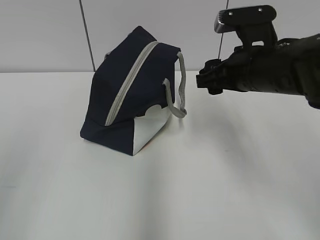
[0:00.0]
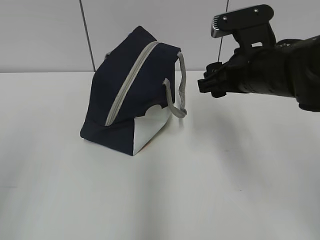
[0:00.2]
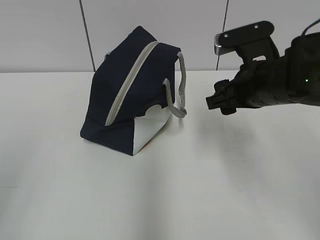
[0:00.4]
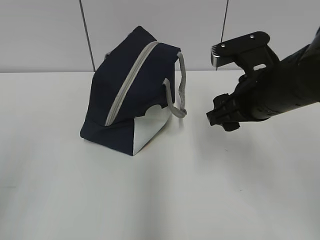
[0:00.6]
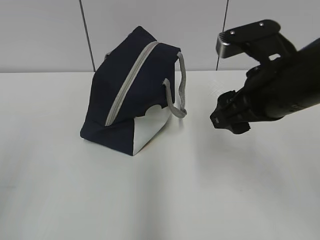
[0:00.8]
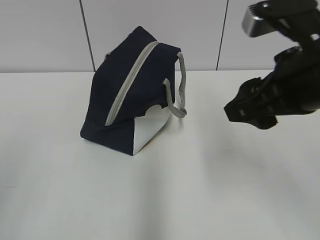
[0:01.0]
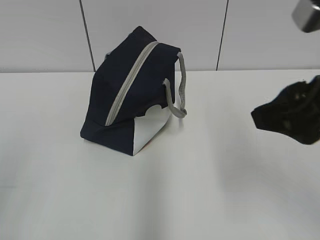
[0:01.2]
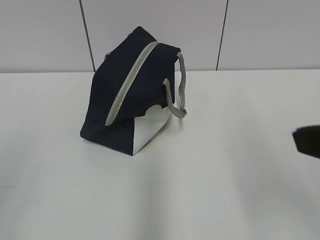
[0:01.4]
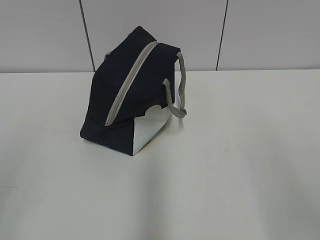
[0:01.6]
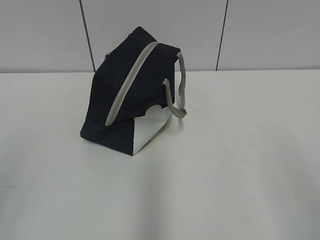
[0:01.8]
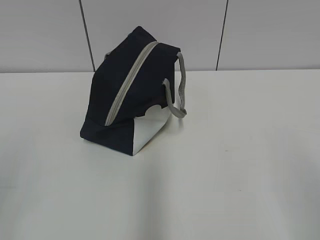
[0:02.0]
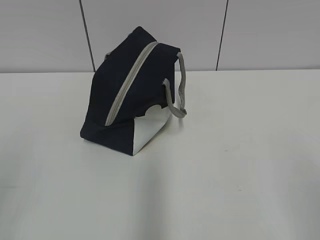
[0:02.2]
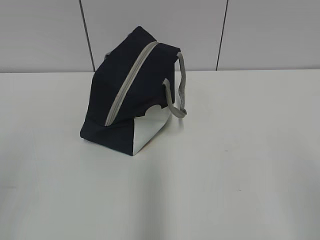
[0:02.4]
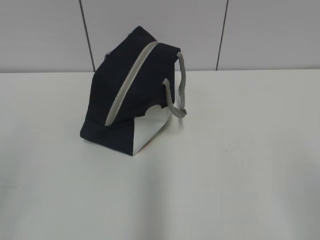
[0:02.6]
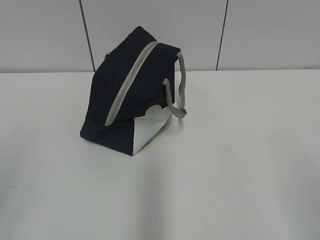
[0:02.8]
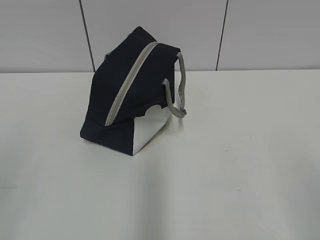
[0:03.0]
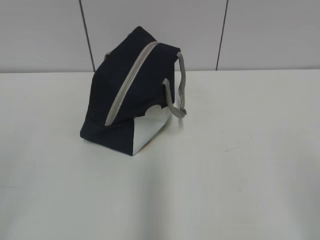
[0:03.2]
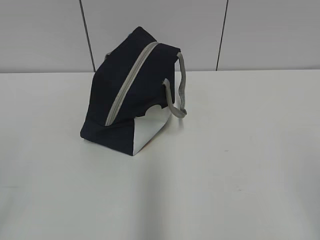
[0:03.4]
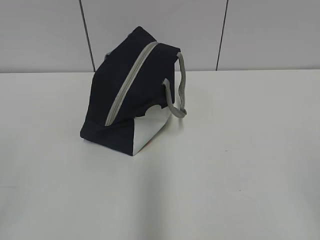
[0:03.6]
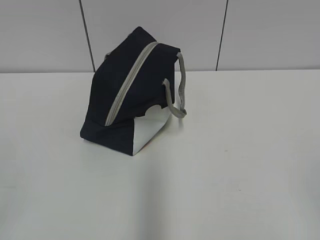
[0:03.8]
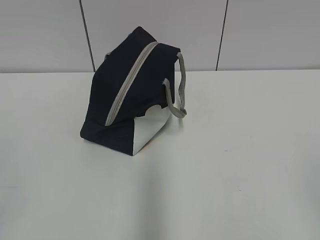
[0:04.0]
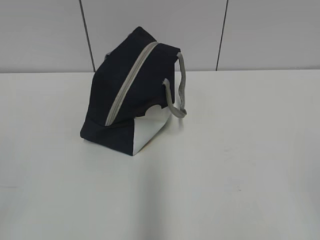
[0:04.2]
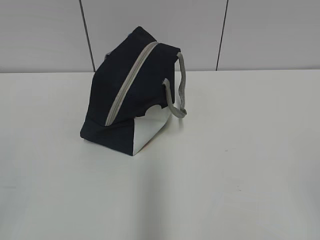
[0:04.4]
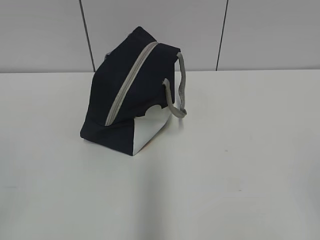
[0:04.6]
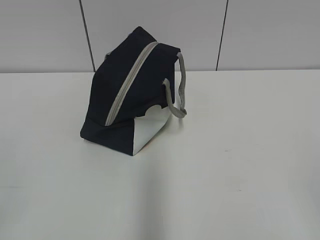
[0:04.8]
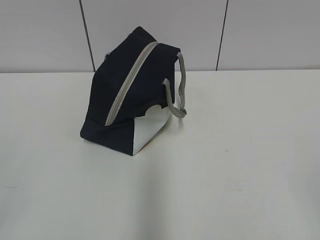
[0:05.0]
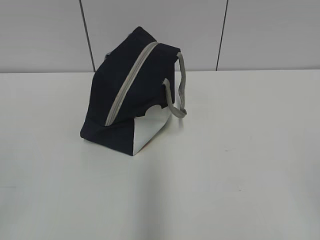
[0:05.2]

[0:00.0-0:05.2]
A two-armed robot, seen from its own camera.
0:00.0 to 0:01.8: The right gripper travels backward by some 30 cm.
